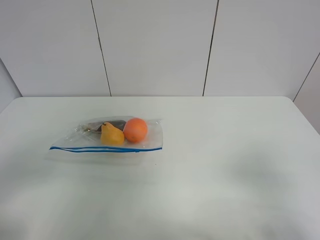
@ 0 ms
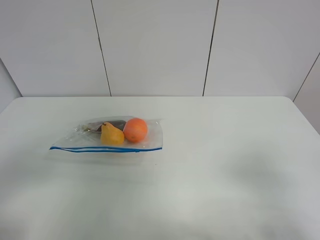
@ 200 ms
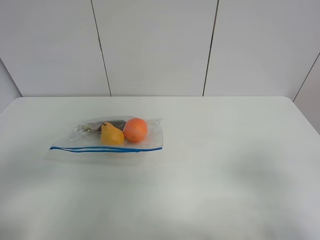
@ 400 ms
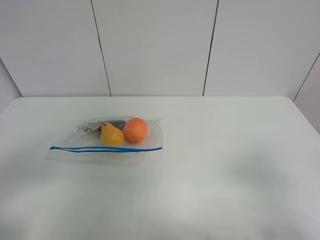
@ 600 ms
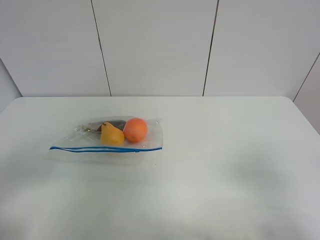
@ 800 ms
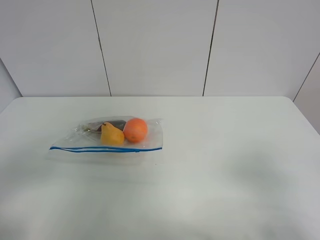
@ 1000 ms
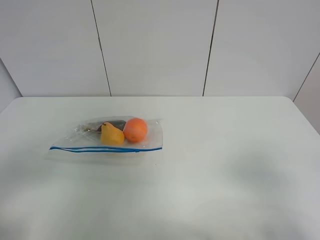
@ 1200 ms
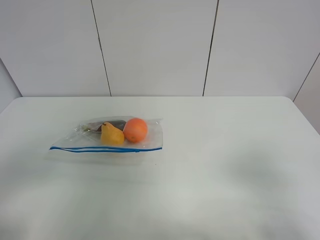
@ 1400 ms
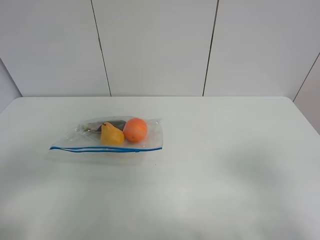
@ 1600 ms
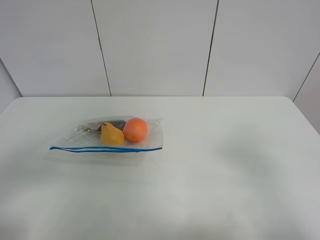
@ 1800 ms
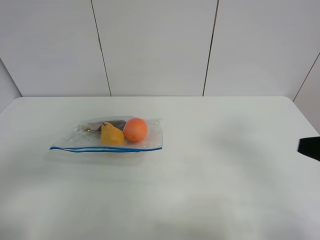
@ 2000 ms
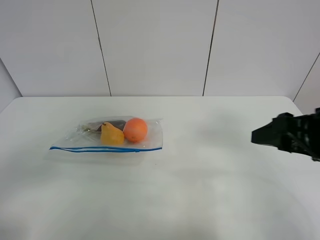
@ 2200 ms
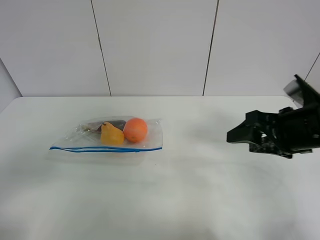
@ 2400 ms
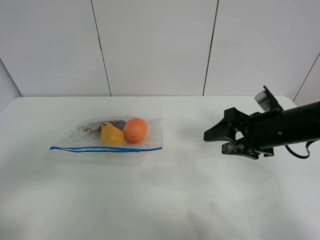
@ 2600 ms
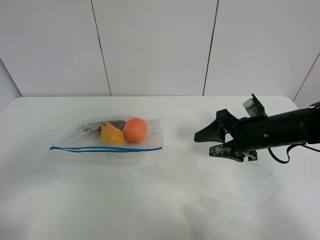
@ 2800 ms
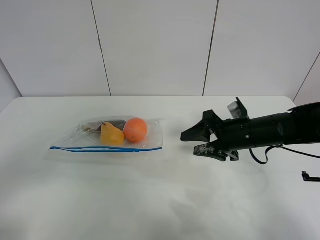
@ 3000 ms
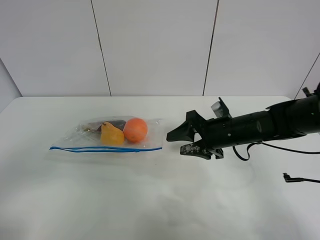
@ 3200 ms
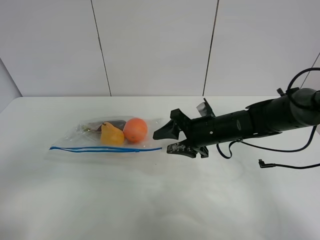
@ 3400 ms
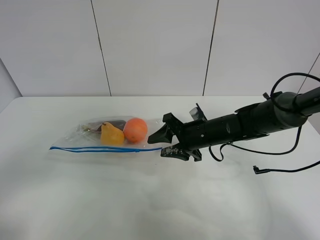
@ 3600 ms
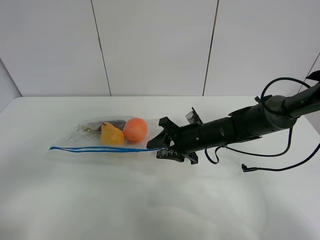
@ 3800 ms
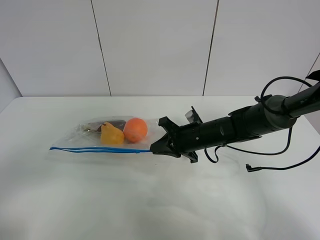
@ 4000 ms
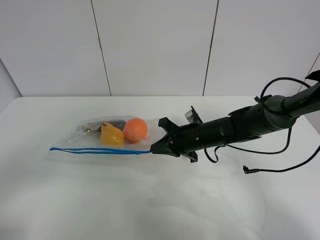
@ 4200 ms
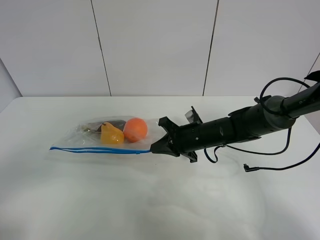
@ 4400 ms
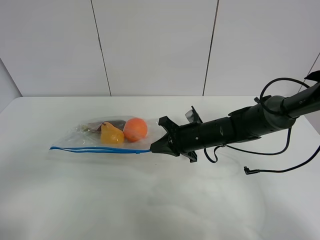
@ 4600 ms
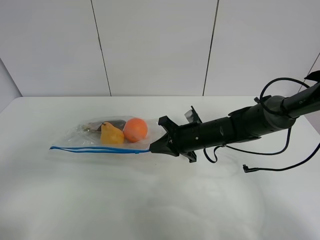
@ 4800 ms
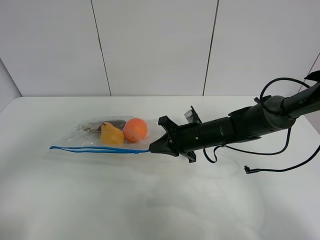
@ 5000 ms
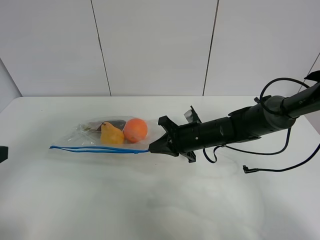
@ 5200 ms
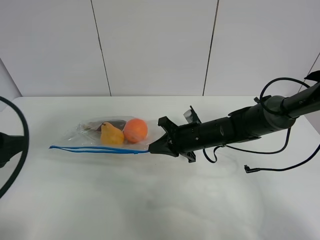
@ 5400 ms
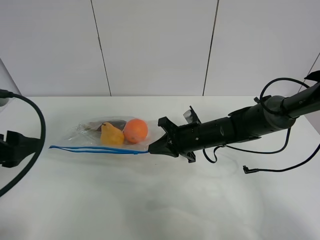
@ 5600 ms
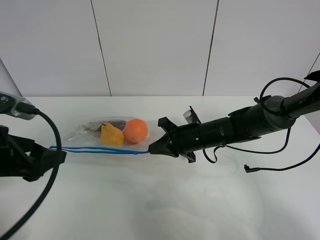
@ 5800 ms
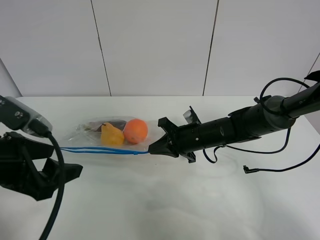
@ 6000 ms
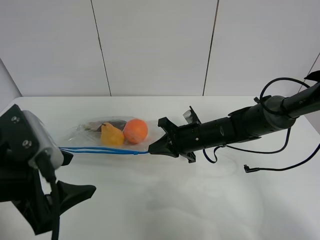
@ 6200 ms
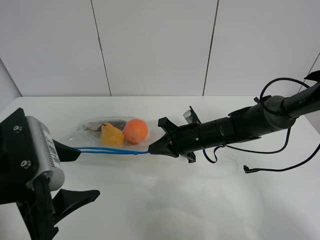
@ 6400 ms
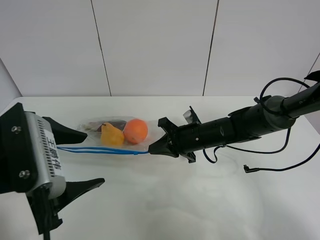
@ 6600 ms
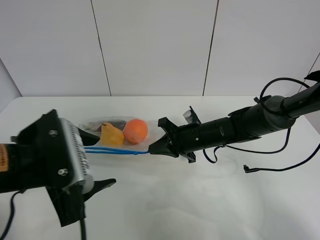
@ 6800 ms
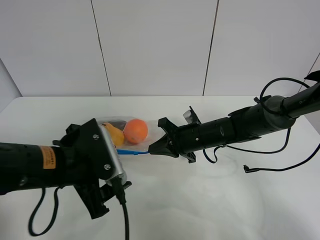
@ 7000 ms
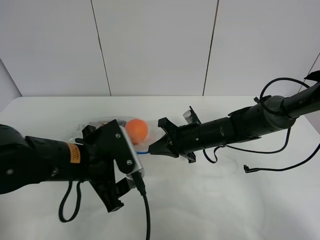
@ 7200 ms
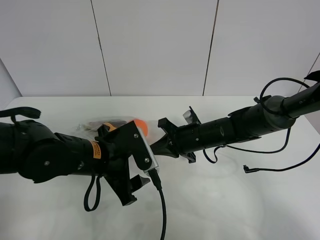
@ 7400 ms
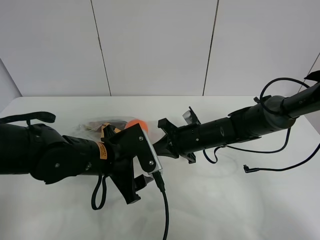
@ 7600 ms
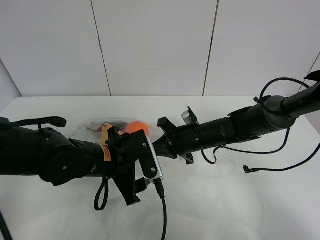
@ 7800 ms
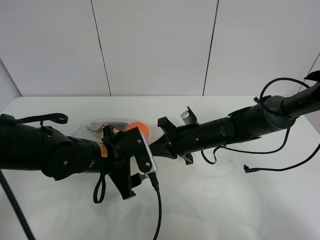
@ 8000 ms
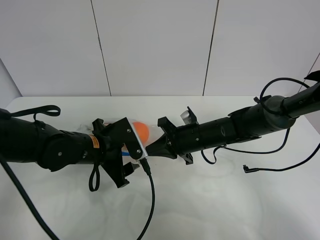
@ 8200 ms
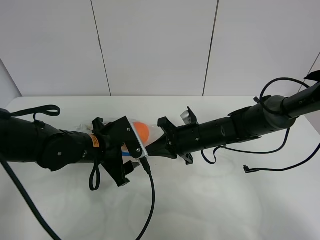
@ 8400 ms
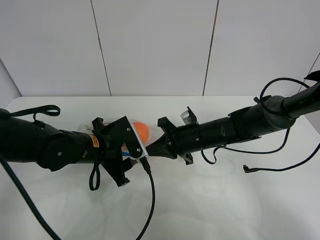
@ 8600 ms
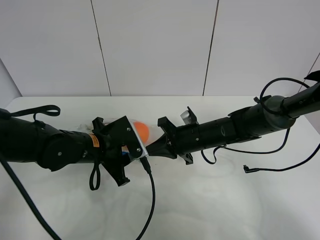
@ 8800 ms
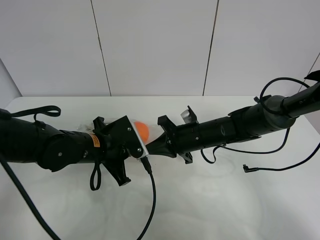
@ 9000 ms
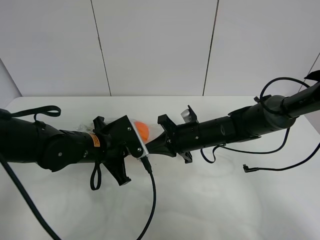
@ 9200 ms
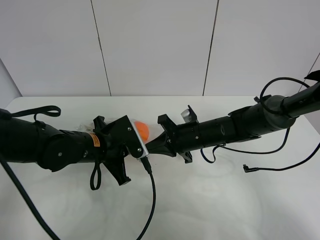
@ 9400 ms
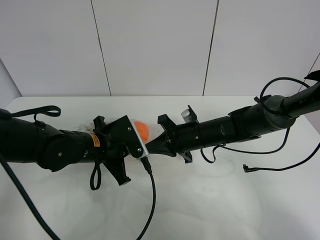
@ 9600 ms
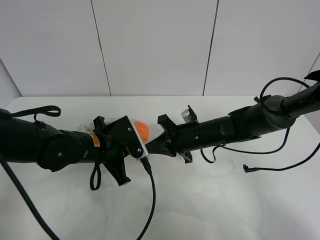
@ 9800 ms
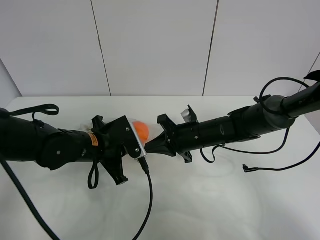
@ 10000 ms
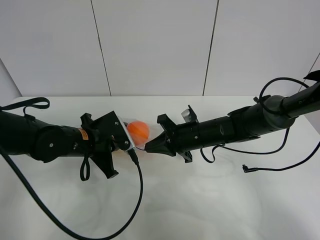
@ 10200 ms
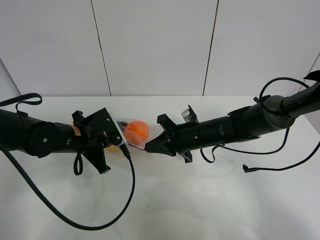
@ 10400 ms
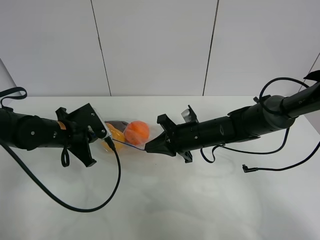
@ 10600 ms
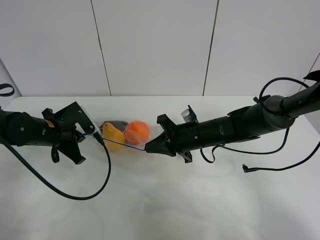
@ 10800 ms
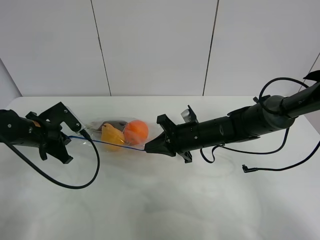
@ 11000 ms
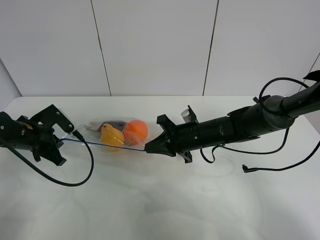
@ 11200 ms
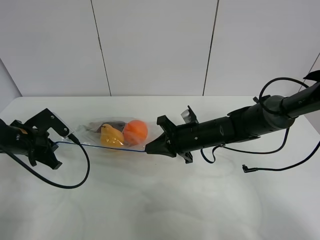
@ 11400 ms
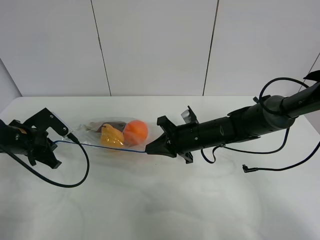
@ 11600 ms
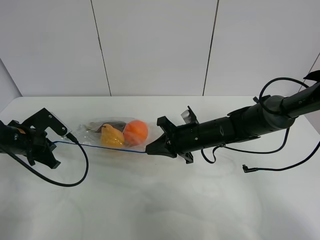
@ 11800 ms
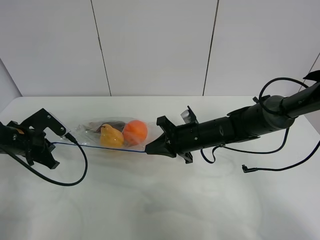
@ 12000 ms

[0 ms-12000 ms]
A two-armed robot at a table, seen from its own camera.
Step, 0 ms to 4000 ms: Grasp the fruit bag with right gripper.
1600 ms to 3000 ms: The right gripper is displaced forward and downward by approximately 30 cm.
3000 ms to 4400 ms: The right gripper goes roughly 5 cm to the left, and closes up.
4400 ms to 6000 ms: The left gripper moves forward and to the right, some 15 cm.
6000 ms to 7600 ms: The left gripper goes some 15 cm to the right, downward and forward.
7600 ms to 9000 ms: The left gripper ends up some 5 cm from where it was, and closes its fingers.
9000 ms to 10400 ms: The left gripper is displaced to the left by about 5 cm.
10400 ms to 12000 ms: The left gripper shifts about 15 cm to the left.

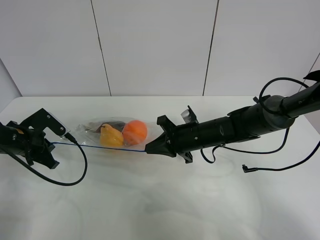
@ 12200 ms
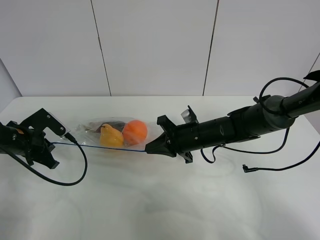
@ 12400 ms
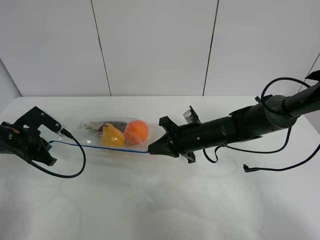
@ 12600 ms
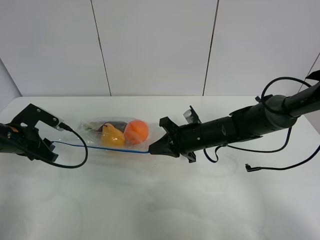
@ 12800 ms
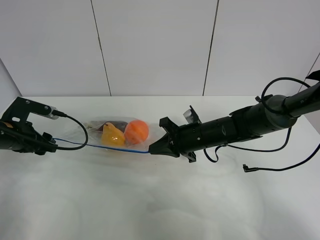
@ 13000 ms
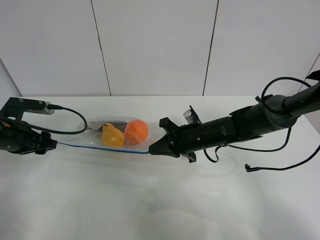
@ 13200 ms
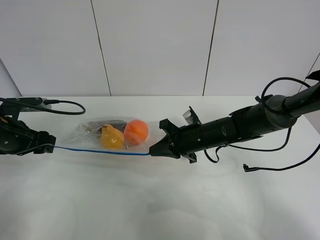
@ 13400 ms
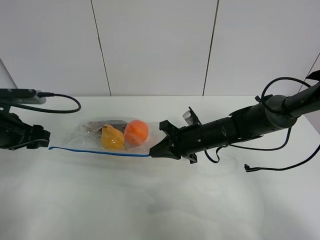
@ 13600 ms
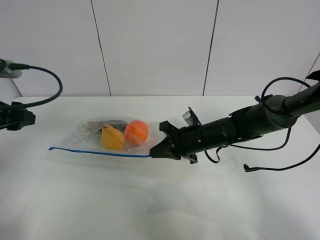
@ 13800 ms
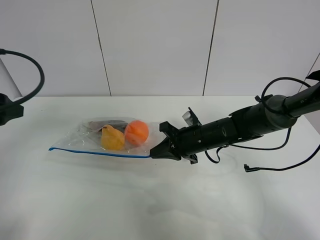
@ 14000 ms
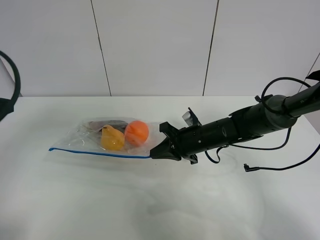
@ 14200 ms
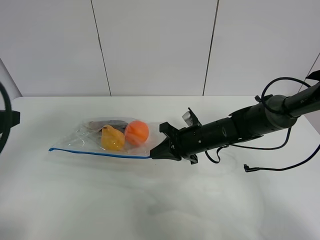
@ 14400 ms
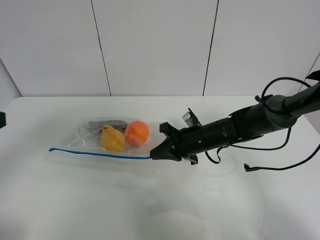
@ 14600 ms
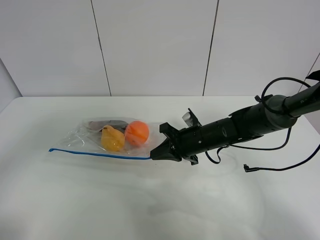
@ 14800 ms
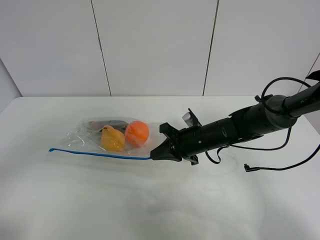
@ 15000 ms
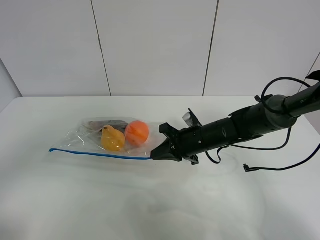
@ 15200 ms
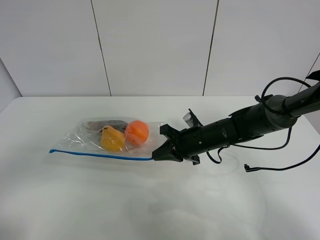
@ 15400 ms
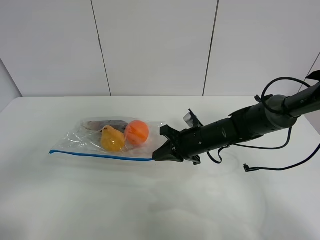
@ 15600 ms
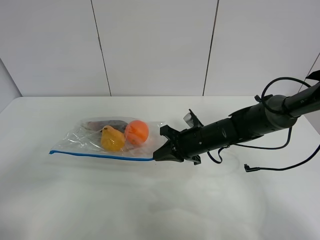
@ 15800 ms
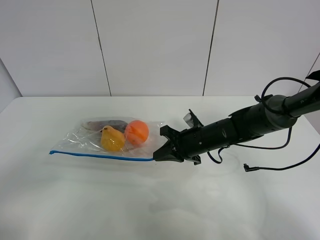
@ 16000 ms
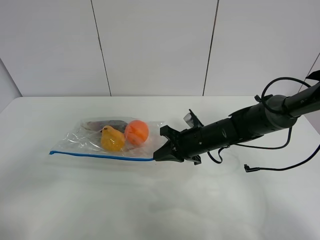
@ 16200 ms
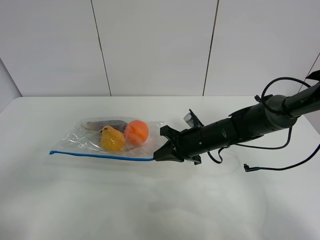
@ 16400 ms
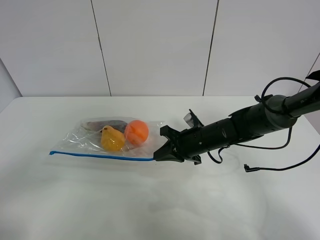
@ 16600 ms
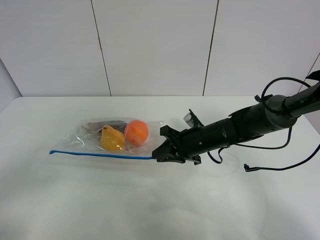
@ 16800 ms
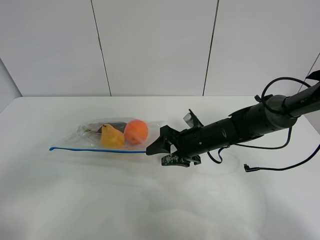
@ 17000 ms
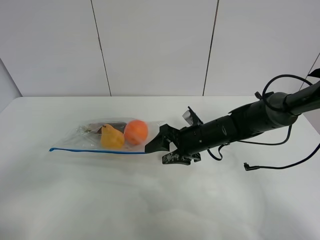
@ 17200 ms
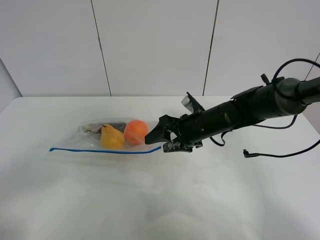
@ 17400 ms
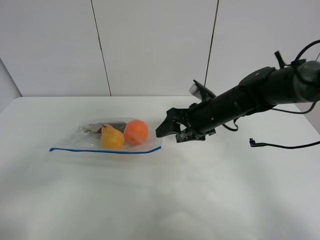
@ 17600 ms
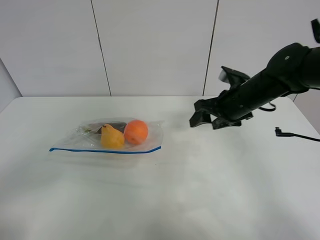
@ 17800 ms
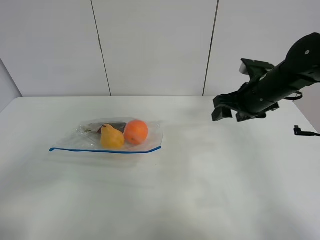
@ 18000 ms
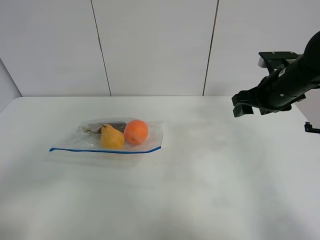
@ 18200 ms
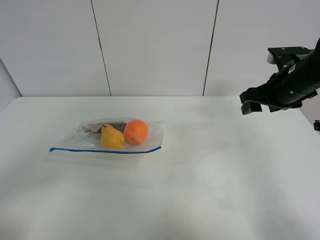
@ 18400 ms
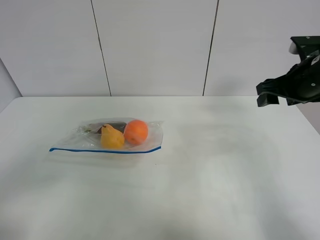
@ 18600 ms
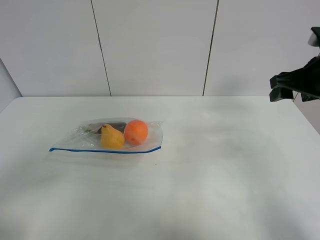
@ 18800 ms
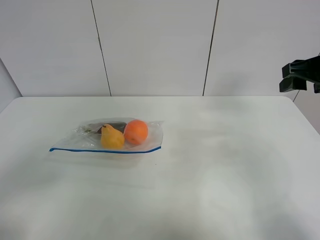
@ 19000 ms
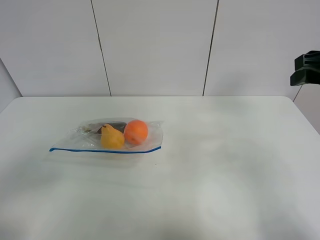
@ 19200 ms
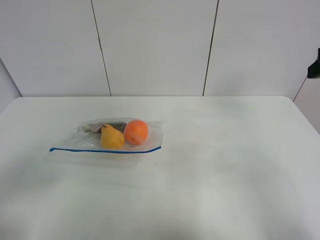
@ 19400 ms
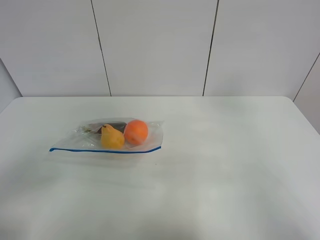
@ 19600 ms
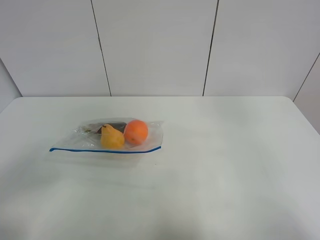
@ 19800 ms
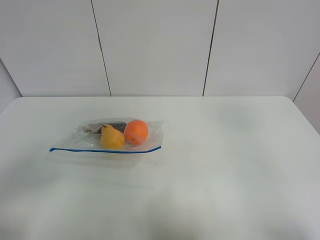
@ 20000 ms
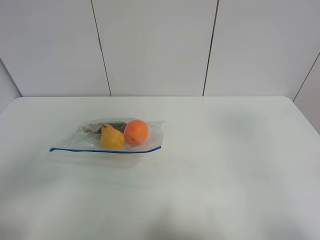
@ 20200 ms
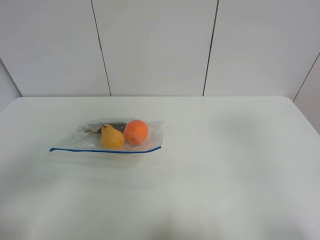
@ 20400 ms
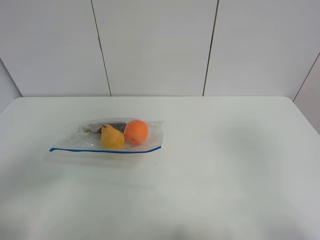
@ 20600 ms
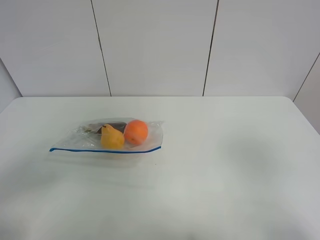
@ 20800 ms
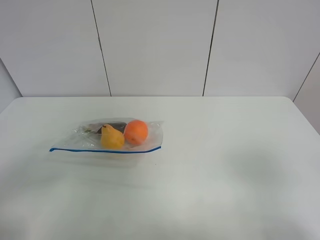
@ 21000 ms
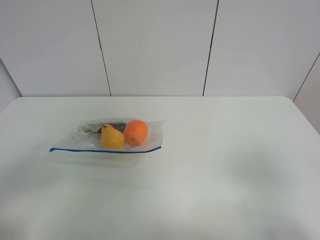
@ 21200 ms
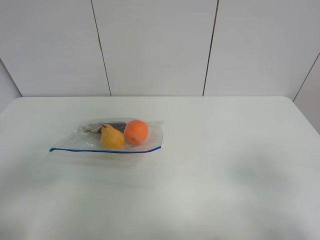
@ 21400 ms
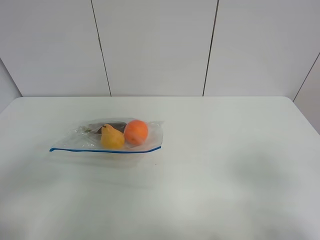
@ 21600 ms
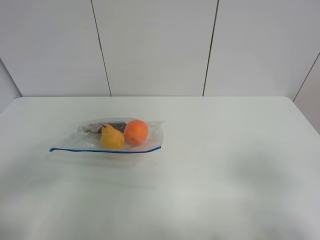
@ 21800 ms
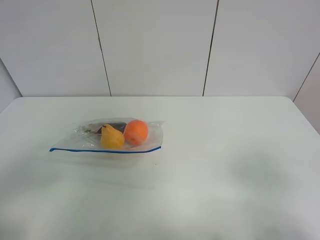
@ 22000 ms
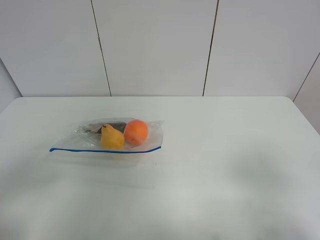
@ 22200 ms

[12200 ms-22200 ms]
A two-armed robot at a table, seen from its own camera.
12200 ms to 13600 ms: The left gripper heads upward, covering roughly 10 cm, and opens up.
13600 ms to 15000 ms: The left gripper heads backward and upward, covering about 25 cm.
15000 ms to 16400 ms: The left gripper is displaced downward by approximately 5 cm.
16400 ms to 18000 ms: The right gripper is displaced upward and to the right by approximately 15 cm, and opens up.
18000 ms to 19400 ms: The right gripper shifts approximately 20 cm upward, backward and to the right.
19400 ms to 20800 ms: The right gripper shifts roughly 20 cm backward.
